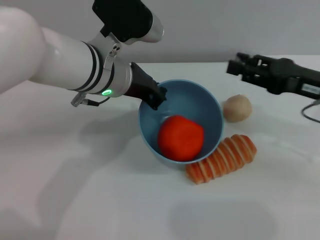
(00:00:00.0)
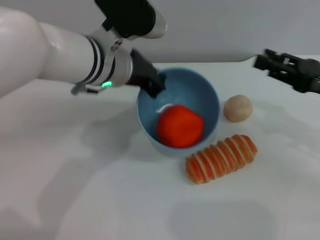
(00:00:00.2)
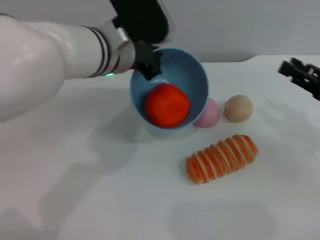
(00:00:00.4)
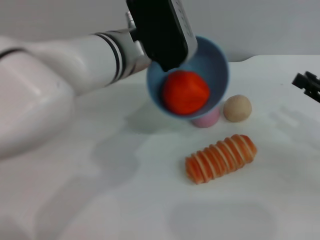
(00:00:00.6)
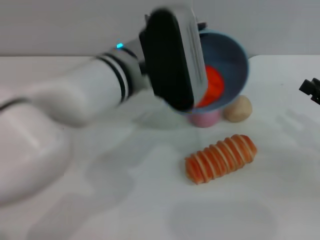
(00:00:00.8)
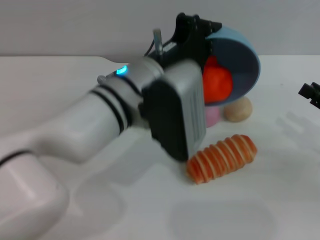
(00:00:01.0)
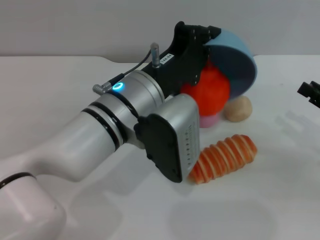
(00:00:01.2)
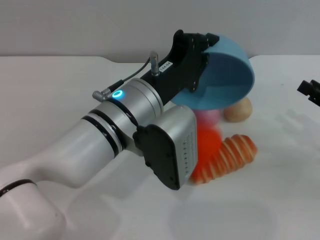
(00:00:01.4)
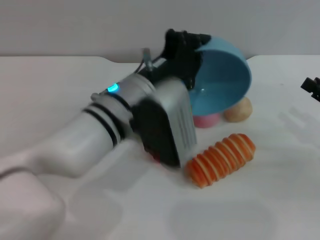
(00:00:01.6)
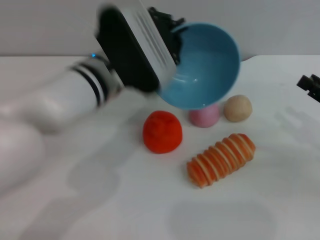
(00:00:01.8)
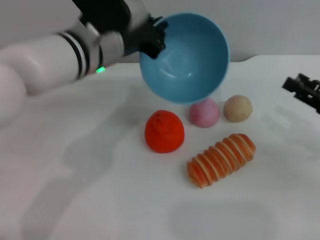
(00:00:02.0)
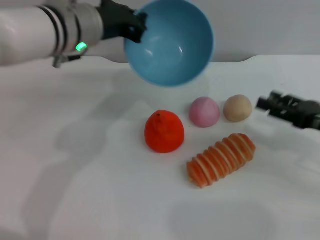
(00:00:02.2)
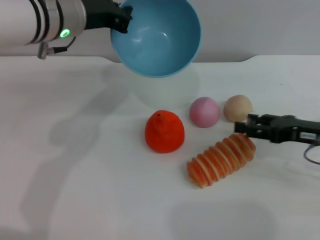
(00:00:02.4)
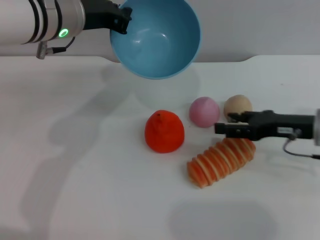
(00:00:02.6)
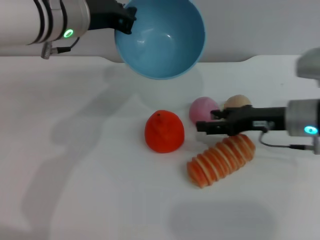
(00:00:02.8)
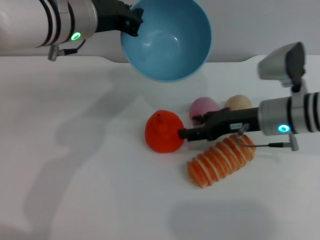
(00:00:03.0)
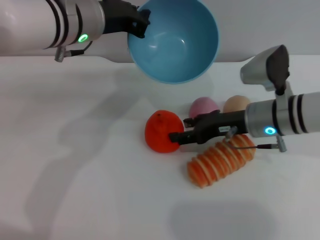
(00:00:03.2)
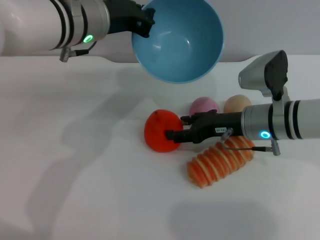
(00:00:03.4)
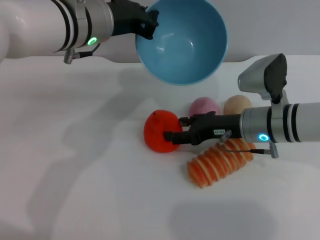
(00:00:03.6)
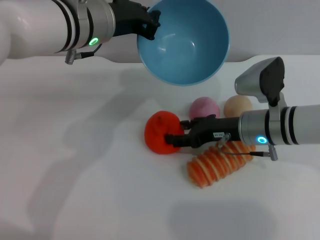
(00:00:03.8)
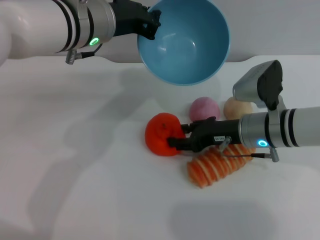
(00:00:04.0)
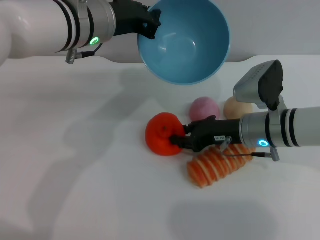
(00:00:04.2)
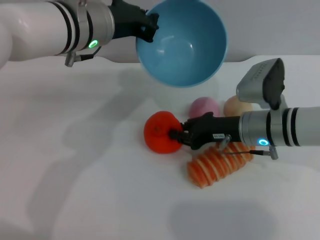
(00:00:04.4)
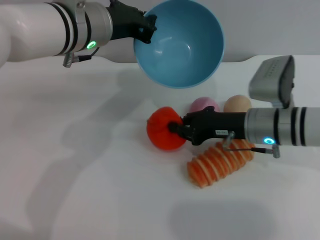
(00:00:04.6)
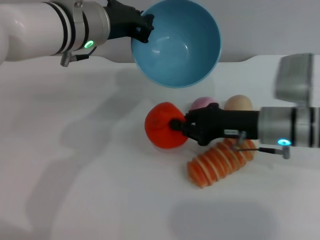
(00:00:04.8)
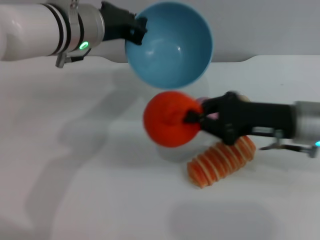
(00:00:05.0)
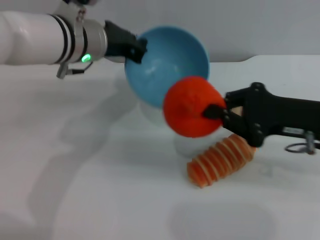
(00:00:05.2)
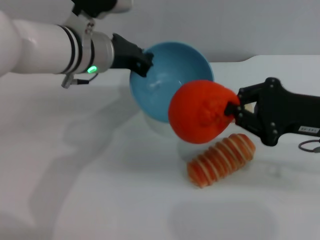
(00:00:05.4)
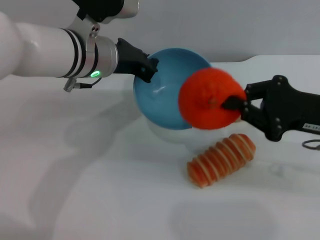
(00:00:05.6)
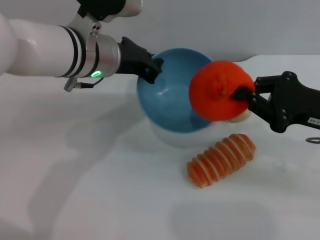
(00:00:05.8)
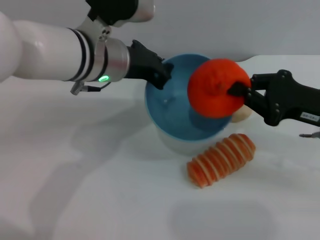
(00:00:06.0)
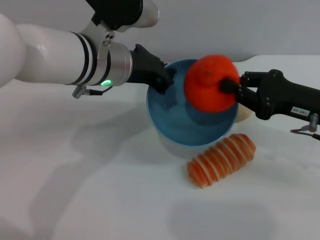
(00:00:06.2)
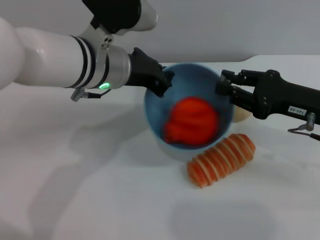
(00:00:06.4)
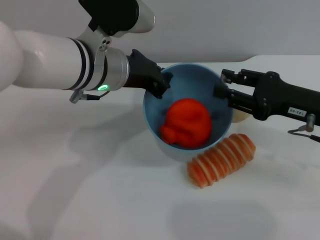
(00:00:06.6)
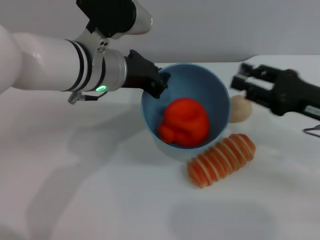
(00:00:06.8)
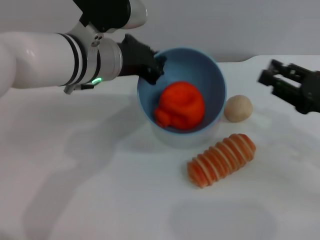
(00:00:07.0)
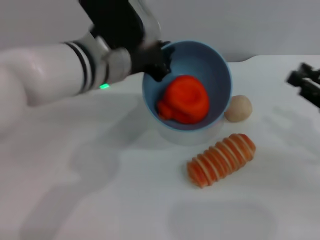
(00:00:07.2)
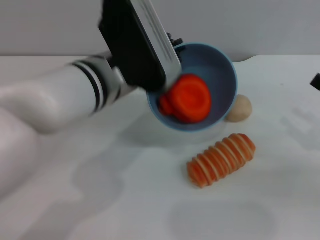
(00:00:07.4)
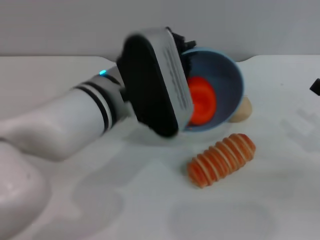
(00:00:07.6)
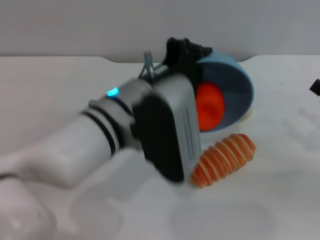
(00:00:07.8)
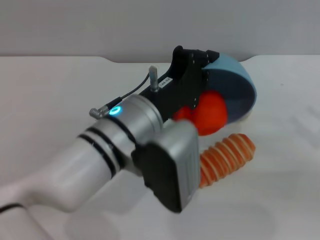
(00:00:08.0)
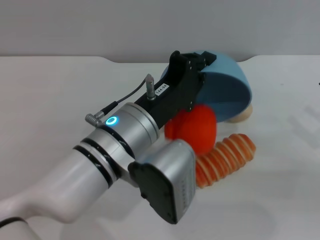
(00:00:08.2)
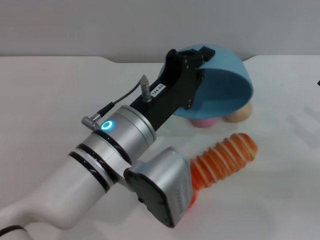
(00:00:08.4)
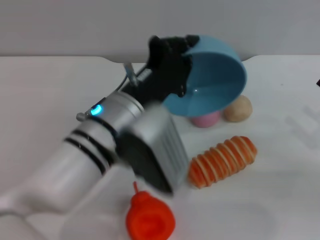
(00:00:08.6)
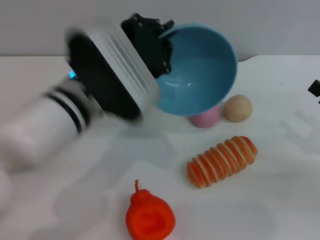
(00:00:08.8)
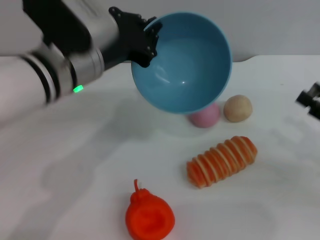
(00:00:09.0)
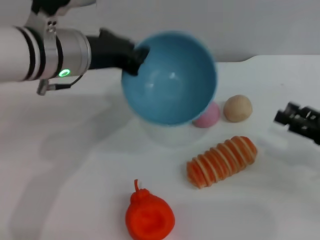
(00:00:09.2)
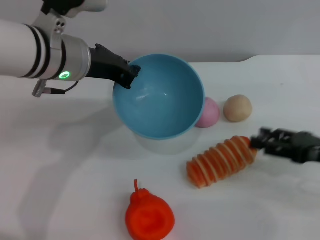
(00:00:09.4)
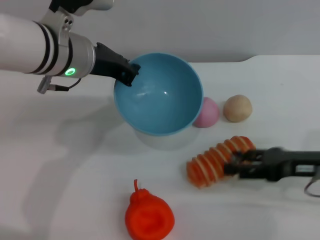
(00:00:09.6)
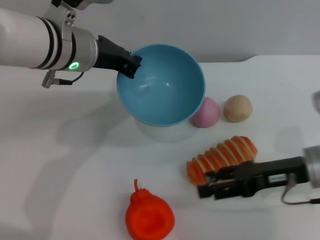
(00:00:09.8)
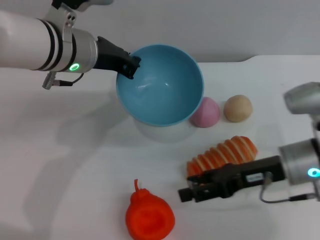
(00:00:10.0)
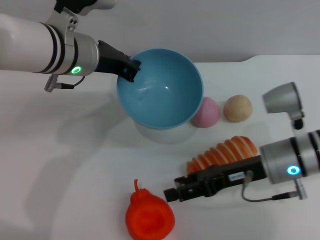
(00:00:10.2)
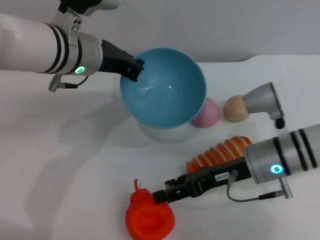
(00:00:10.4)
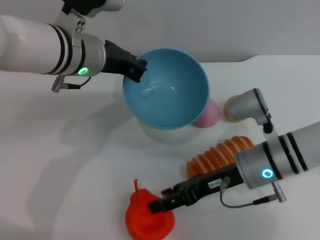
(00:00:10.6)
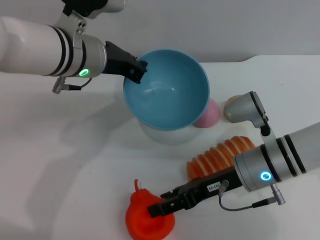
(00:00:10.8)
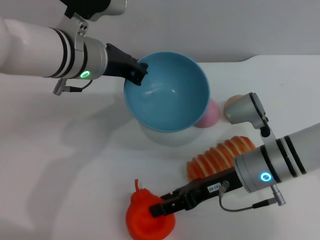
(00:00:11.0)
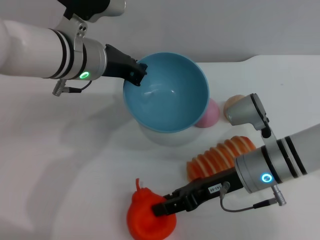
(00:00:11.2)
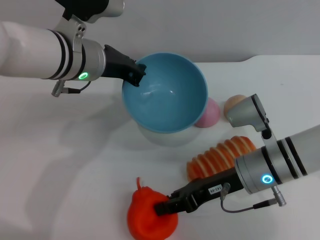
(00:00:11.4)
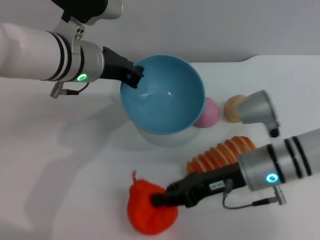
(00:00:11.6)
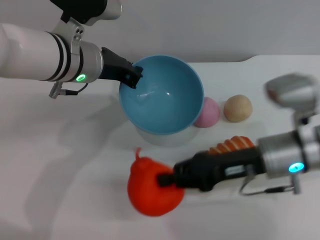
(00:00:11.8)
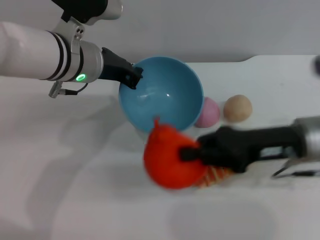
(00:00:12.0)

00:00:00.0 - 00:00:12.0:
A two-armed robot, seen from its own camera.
Task of the whole recording: put the orange into the blue bowl and pour it out repeatedly.
Step, 00:00:00.2 - 00:00:02.0: Pour the orange out of the bowl.
Step, 00:00:02.4 - 00:00:05.2: Pick up the orange with the right gripper.
Step, 00:00:05.4 - 00:00:06.6: Place the orange into the bowl.
Step, 00:00:06.8 - 00:00:08.8: Pour the orange out of the bowl.
Step, 00:00:09.2 - 00:00:12.0: Pick up the orange with the right gripper.
00:00:00.0 - 00:00:01.6: The right gripper shifts roughly 10 cm to the right, downward and backward; the left gripper shifts approximately 5 cm backward.
00:00:01.6 - 00:00:03.0: The right gripper shifts roughly 20 cm to the left and forward; the left gripper moves forward, upward and to the left, about 15 cm.
00:00:03.0 - 00:00:04.4: The right gripper closes its fingers.
00:00:04.4 - 00:00:06.0: The right gripper moves to the right, upward and backward, approximately 15 cm, and closes.
00:00:06.0 - 00:00:07.6: The left gripper heads backward, covering some 5 cm; the right gripper shifts roughly 10 cm to the right and backward, and opens its fingers.
00:00:07.6 - 00:00:09.0: The left gripper shifts about 5 cm to the left.
00:00:09.0 - 00:00:10.4: The right gripper shifts about 20 cm to the left. Meanwhile the left gripper goes about 5 cm forward.
00:00:10.4 - 00:00:12.0: The right gripper shifts roughly 5 cm upward, and closes.

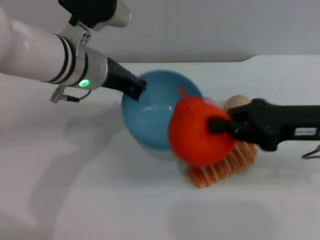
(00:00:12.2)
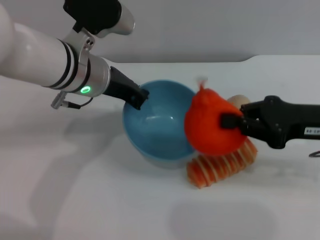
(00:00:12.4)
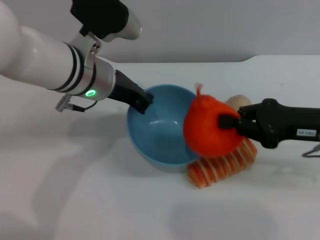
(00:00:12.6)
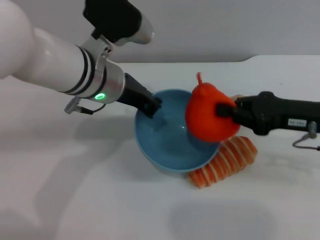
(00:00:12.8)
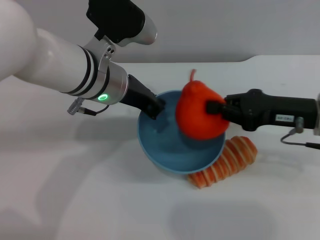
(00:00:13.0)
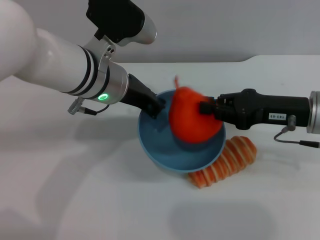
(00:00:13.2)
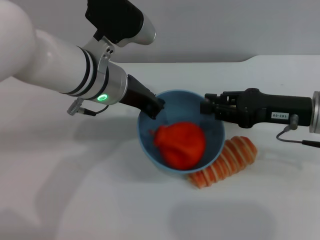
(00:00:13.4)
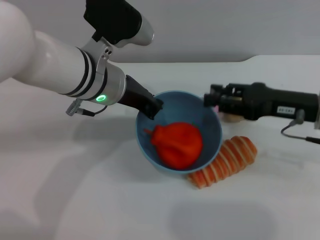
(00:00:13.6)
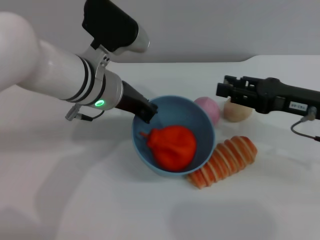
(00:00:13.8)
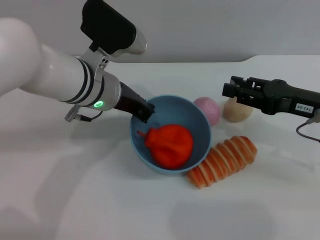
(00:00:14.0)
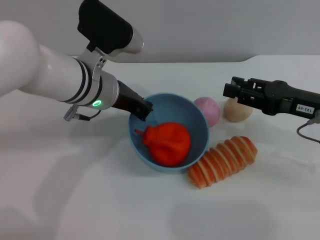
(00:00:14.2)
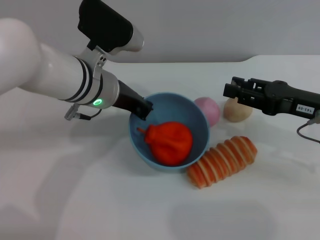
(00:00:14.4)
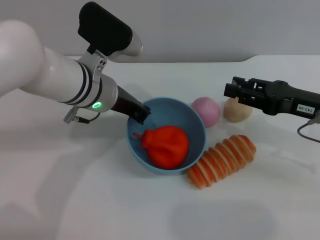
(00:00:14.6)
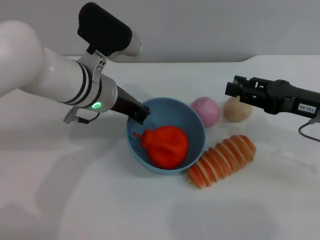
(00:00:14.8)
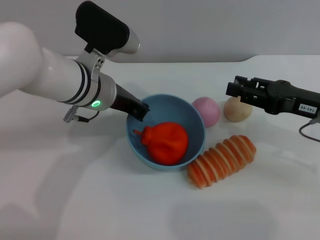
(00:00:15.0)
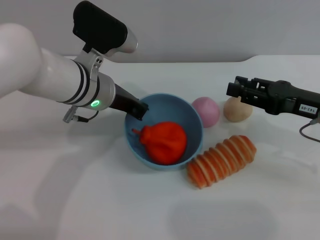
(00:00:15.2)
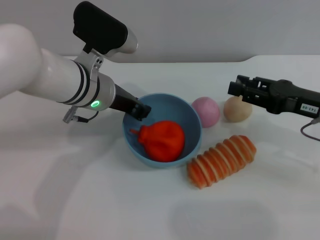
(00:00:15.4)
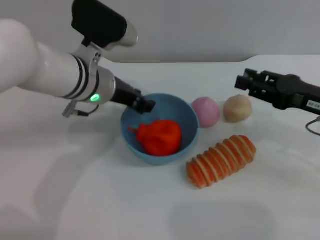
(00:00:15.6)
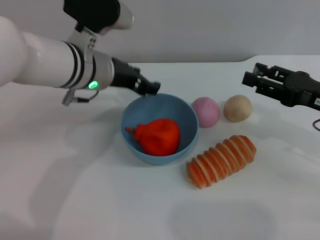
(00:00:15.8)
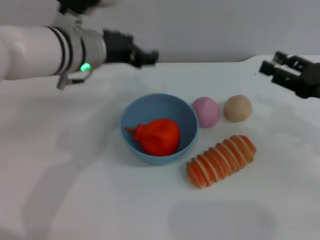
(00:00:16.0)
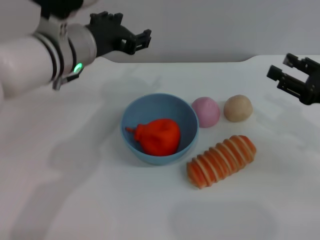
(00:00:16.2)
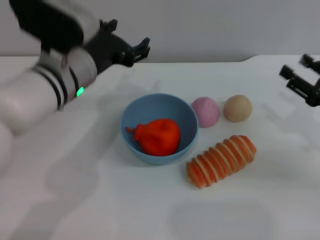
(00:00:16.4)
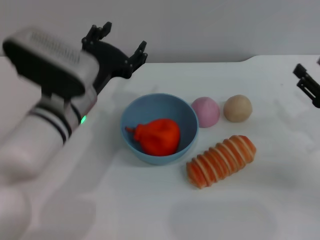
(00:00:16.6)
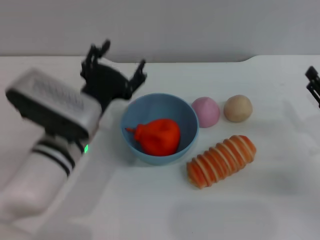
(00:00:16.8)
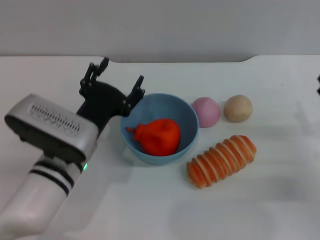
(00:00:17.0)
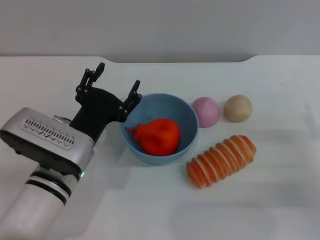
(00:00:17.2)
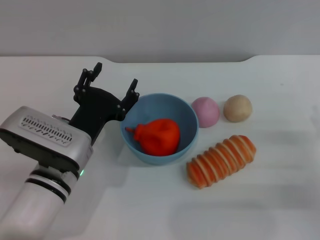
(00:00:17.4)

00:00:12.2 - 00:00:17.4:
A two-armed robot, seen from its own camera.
Task of the whole recording: put the orange into the blue bowl and pour it out repeatedly.
Step, 00:00:12.2 - 00:00:13.6: Place the orange into the bowl.
Step, 00:00:13.8 - 00:00:16.0: Place the bowl on the table.
00:00:12.2 - 00:00:14.0: The right gripper opens up.
00:00:14.0 - 00:00:15.6: The grippers make only small movements.
00:00:15.6 - 00:00:17.4: The left gripper shifts some 15 cm backward and downward, and opens its fingers. Meanwhile the right gripper heads downward and backward, covering some 10 cm.
